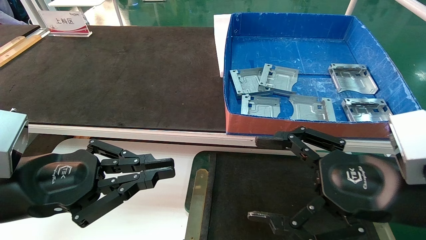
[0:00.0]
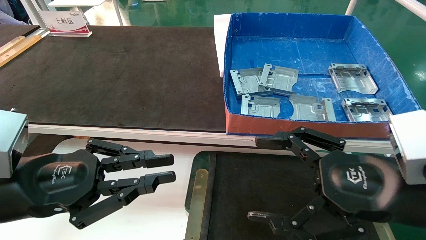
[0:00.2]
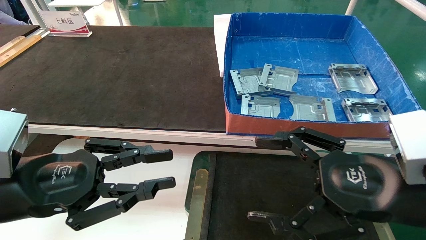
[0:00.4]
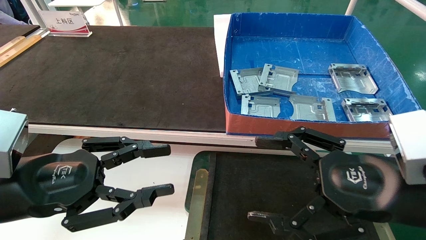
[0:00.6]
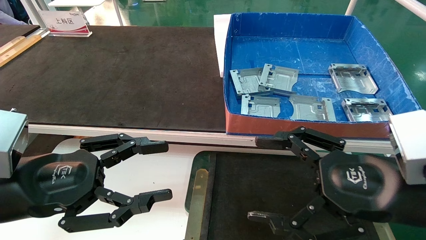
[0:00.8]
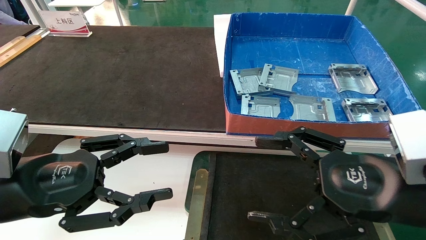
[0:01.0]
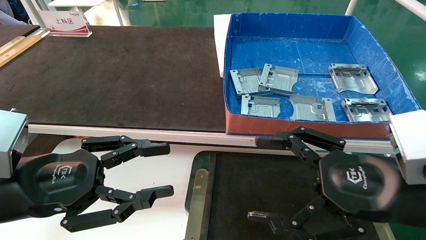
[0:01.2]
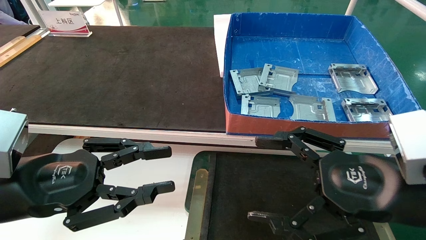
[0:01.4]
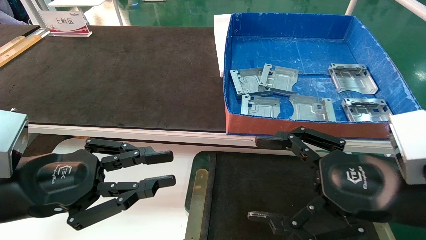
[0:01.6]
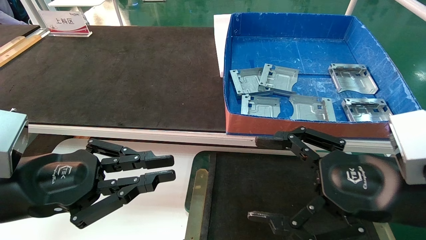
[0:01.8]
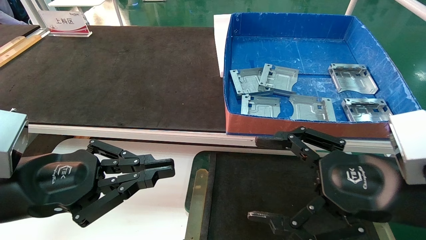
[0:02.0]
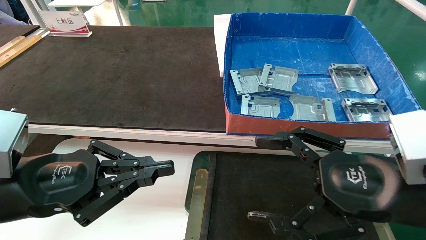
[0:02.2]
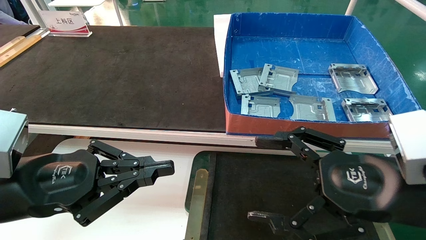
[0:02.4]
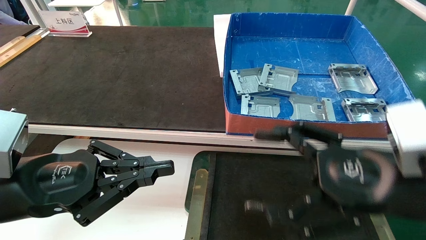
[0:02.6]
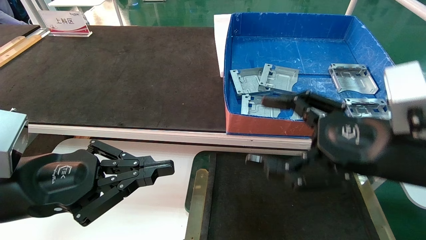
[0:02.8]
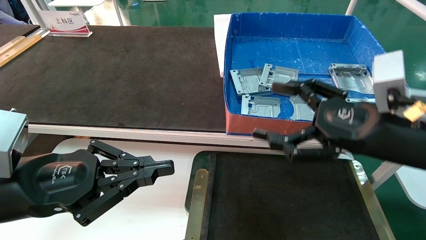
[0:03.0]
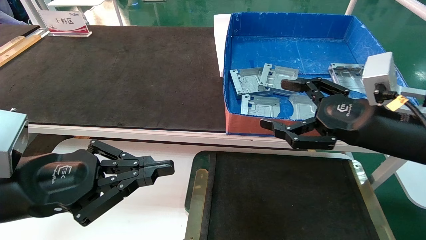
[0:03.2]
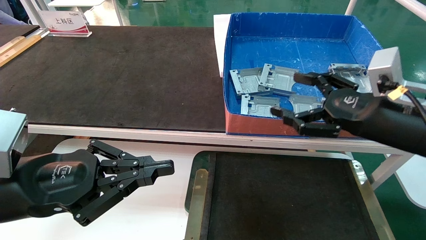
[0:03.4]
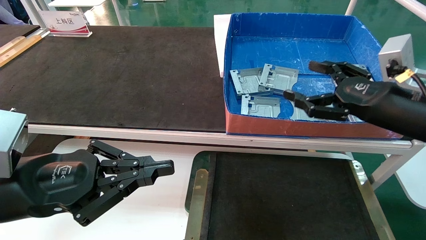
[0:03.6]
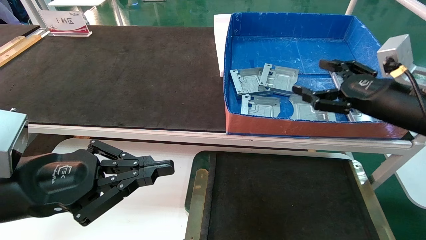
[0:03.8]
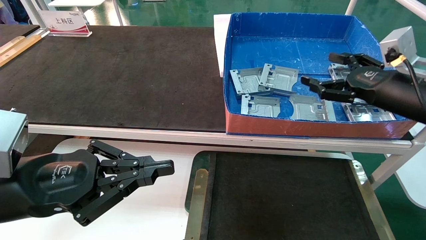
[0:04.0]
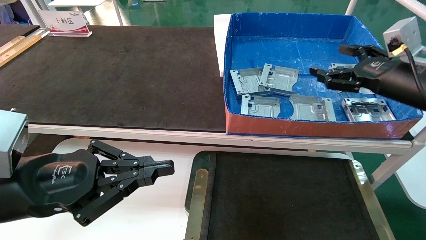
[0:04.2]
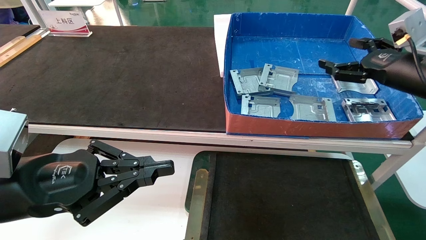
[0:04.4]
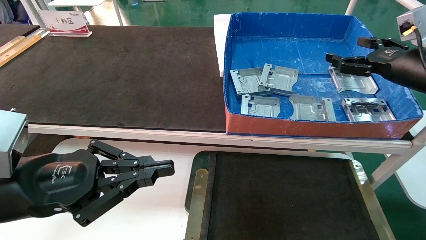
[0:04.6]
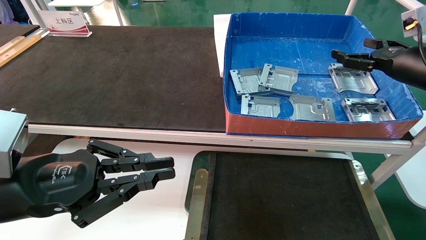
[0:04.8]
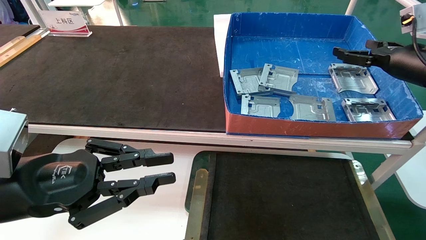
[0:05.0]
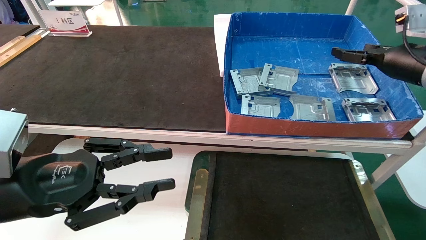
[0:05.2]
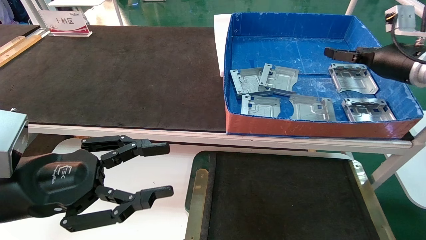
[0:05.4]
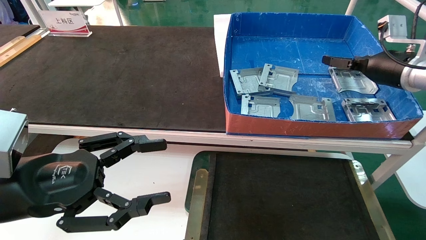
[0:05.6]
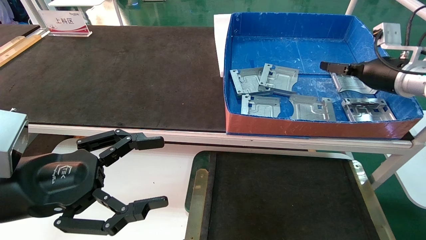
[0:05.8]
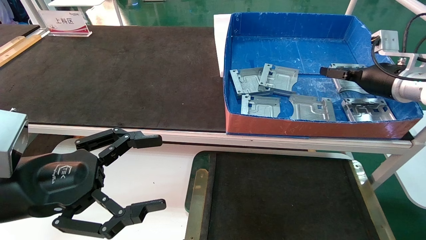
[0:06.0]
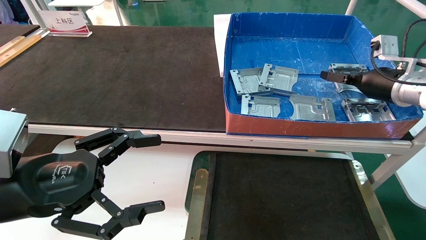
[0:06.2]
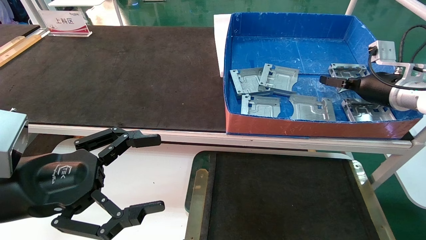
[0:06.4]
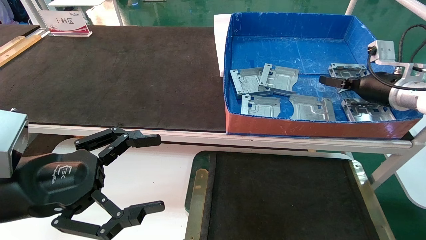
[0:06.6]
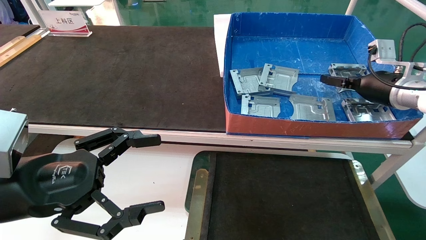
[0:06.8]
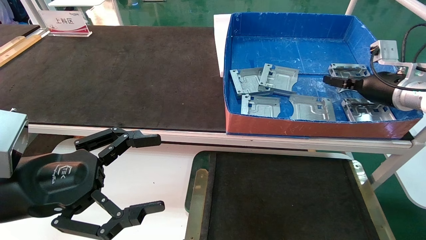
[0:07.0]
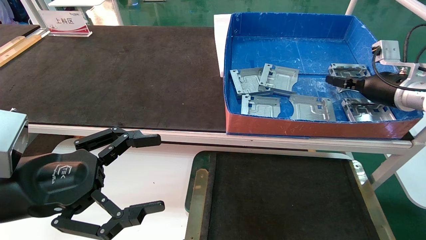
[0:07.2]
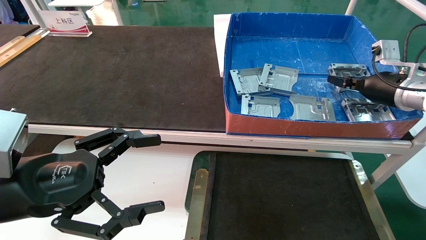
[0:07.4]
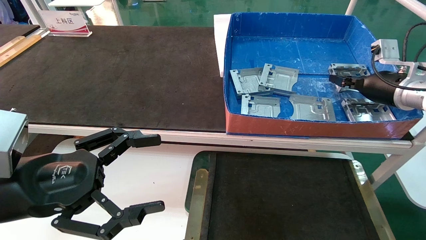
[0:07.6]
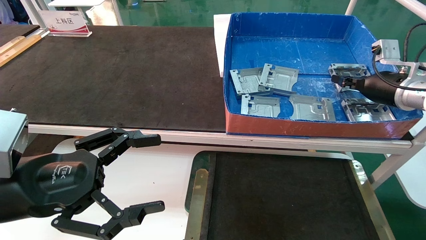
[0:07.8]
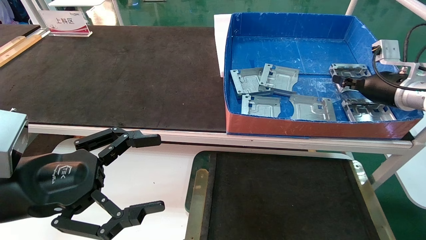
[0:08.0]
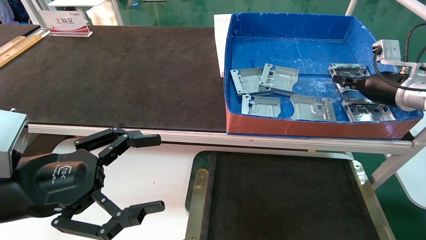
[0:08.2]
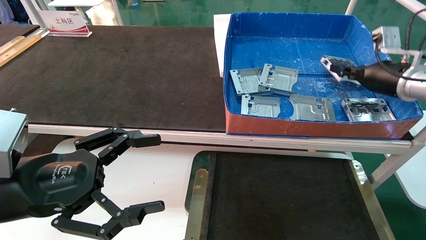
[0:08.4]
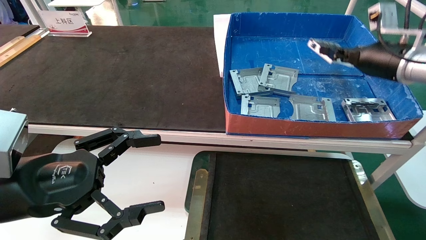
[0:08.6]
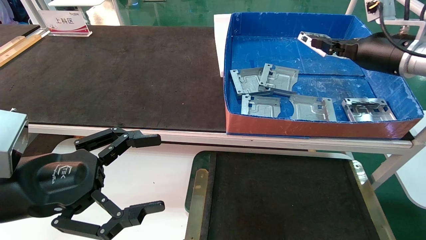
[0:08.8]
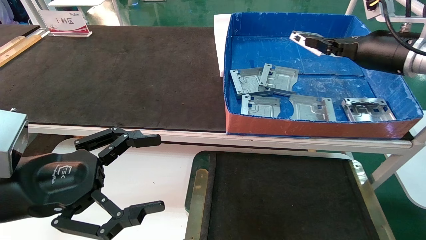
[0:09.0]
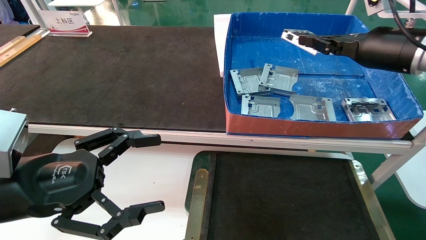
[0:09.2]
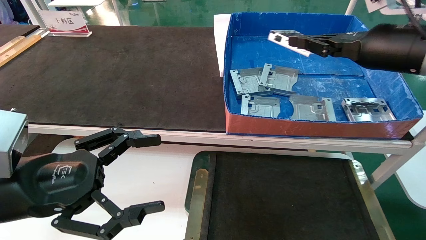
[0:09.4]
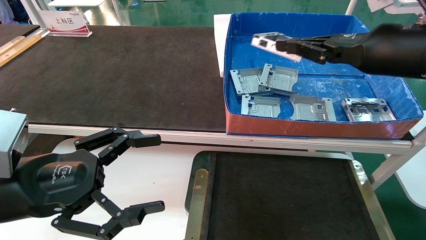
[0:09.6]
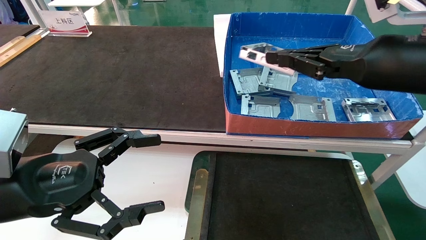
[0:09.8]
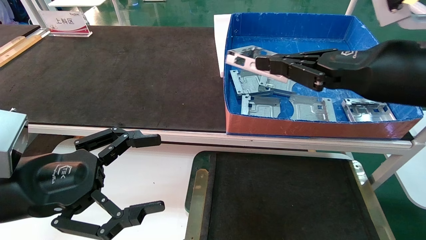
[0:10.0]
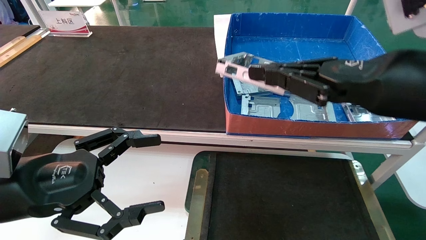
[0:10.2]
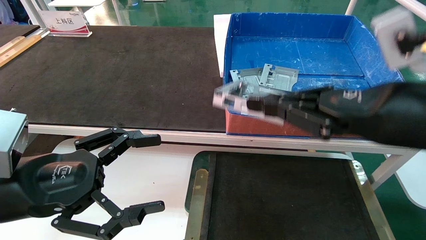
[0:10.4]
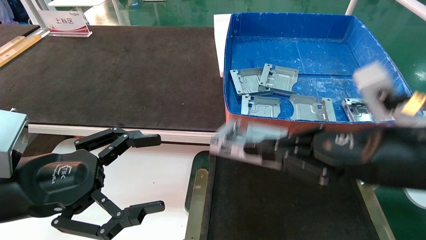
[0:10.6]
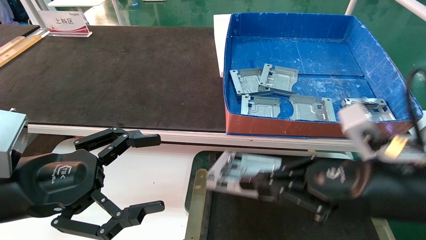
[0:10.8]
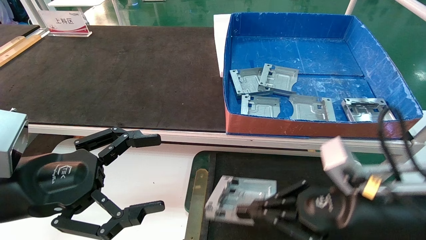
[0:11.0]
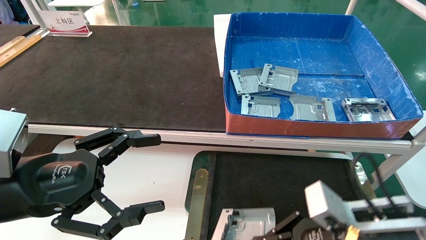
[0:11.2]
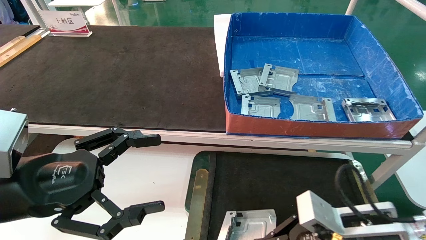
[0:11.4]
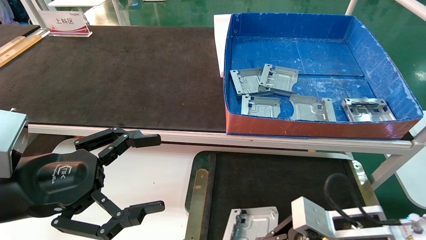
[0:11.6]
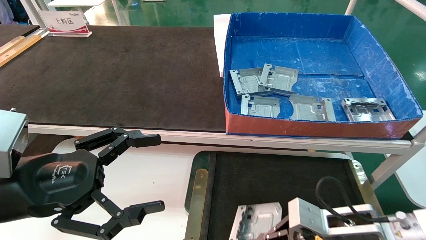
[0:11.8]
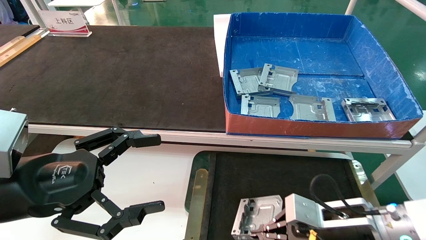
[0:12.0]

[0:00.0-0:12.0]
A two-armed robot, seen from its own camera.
Task of the whole recording: pick up parts and place them into a black container.
Step, 0:03.2 to 0:08.2: Pick up the hard drive bracket from the feeding area.
0:00.0 to 0:01.6: Both grippers stay put.
0:01.6 to 0:03.0: The right gripper shifts approximately 5 cm forward; the left gripper closes.
0:03.0 to 0:04.4: The right gripper is displaced forward, to the right and upward by about 20 cm.
0:04.4 to 0:06.0: The right gripper travels forward by approximately 10 cm; the left gripper opens.
0:06.0 to 0:07.6: The right gripper closes its fingers.
0:07.6 to 0:09.0: The right gripper moves upward and to the left, about 10 cm.
0:09.0 to 0:10.4: The right gripper moves backward and to the left, some 20 cm.
0:10.4 to 0:12.0: The right gripper shifts approximately 20 cm downward.

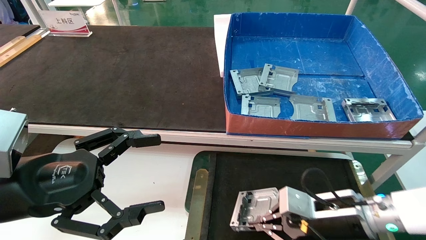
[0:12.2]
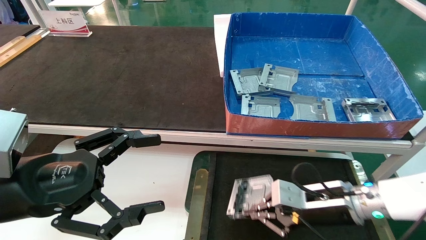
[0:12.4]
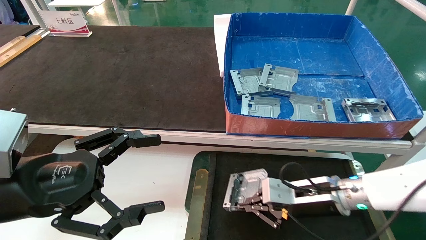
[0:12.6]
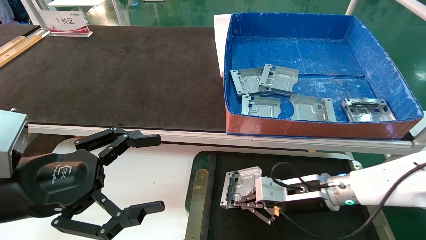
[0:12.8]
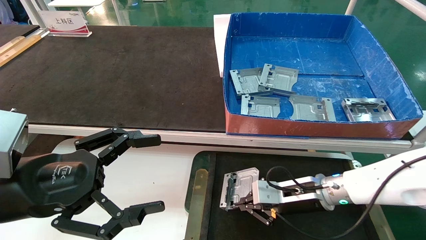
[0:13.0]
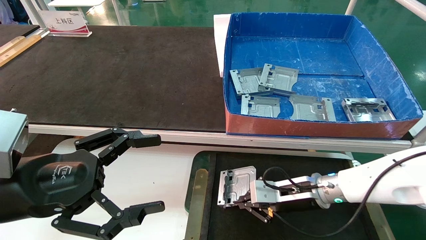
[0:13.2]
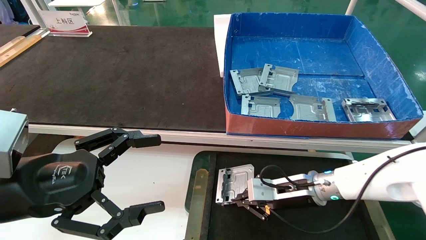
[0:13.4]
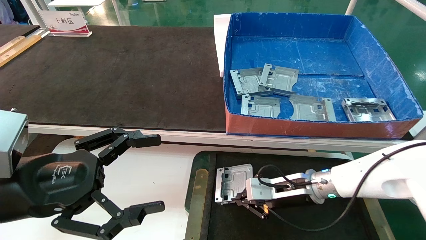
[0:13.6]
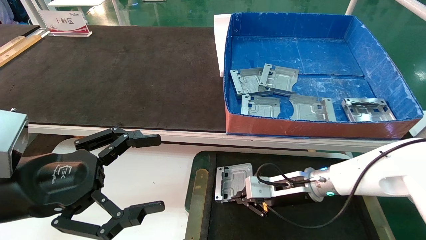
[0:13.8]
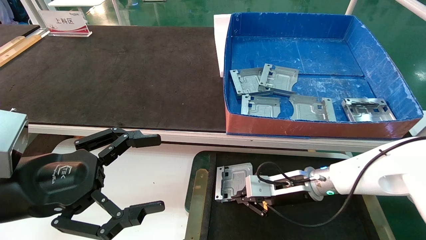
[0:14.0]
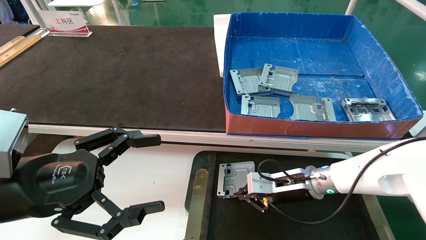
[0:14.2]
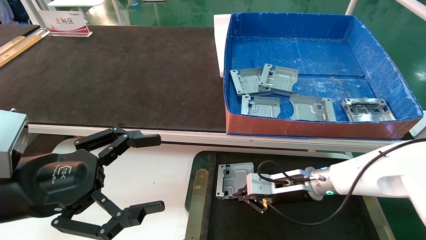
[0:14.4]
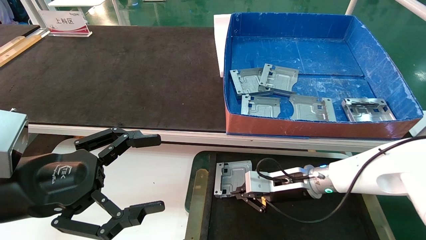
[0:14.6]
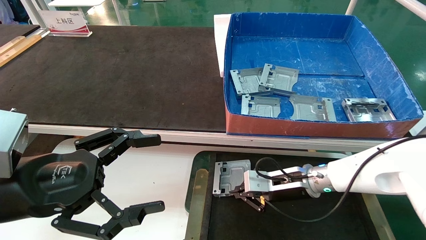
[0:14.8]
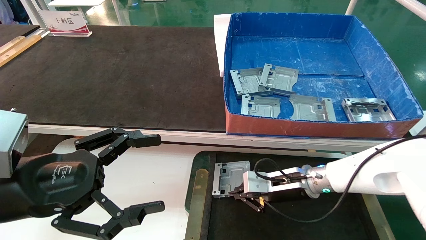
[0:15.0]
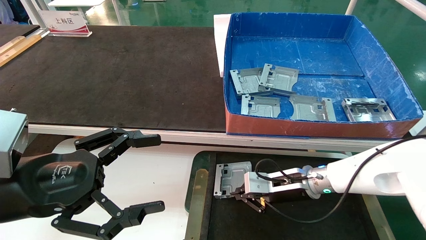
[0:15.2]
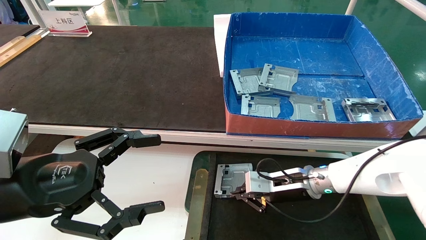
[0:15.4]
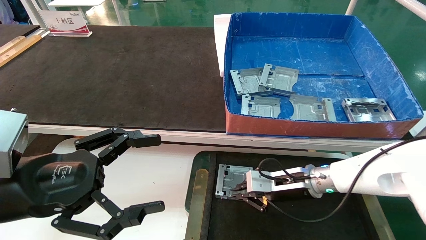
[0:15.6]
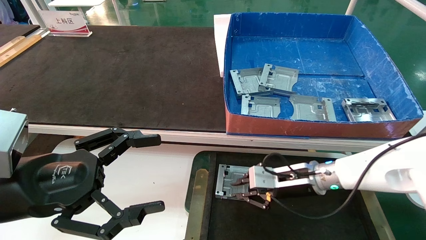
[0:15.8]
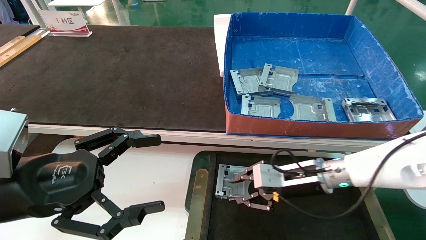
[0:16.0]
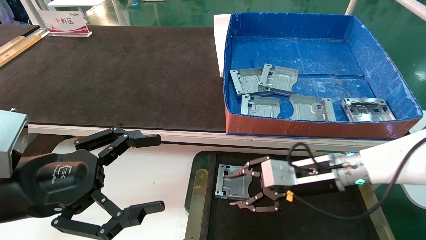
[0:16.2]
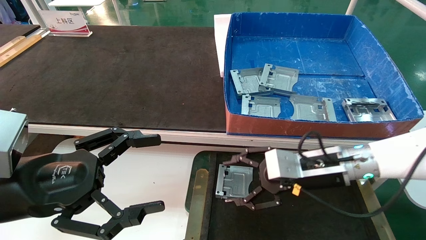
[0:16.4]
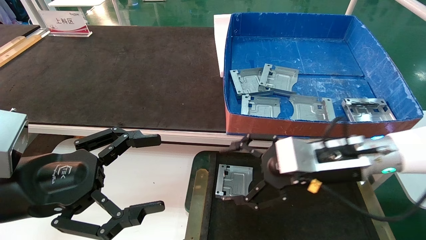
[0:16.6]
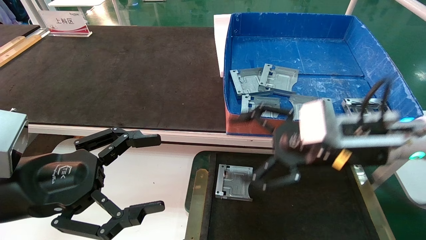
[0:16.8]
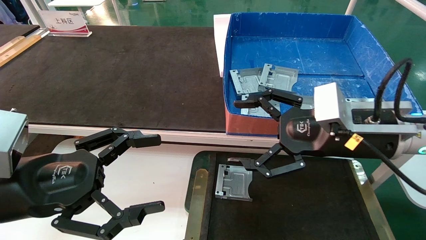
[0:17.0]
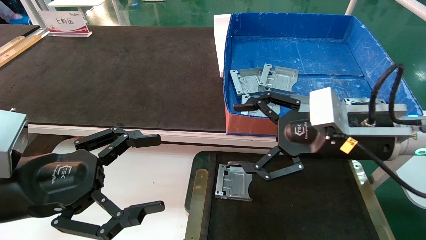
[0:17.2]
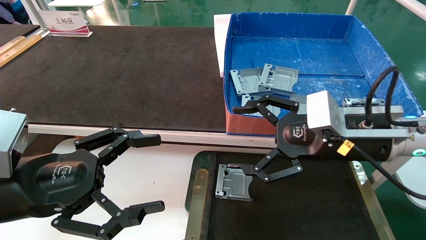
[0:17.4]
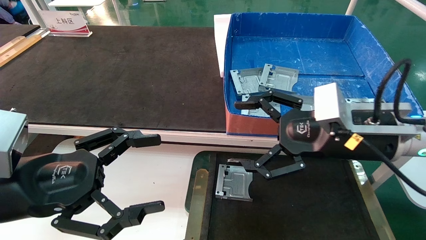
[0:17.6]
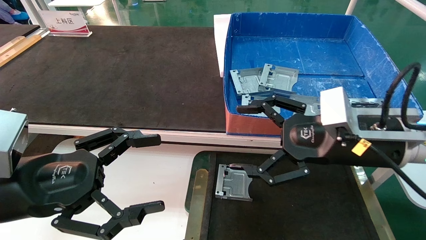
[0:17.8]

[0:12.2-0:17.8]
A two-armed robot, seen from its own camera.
Task of the whole recording: pick up parts and place them into a black container.
Step, 0:12.2 to 0:15.8: Place the hard drive bracket into the box.
0:12.2 to 0:13.6: The right gripper heads forward, covering about 10 cm.
0:13.6 to 0:15.0: Neither gripper changes place.
0:15.0 to 0:16.4: The right gripper shifts some 10 cm upward and backward, and opens.
0:16.4 to 0:17.8: The right gripper goes approximately 10 cm upward and backward, and opens up.
